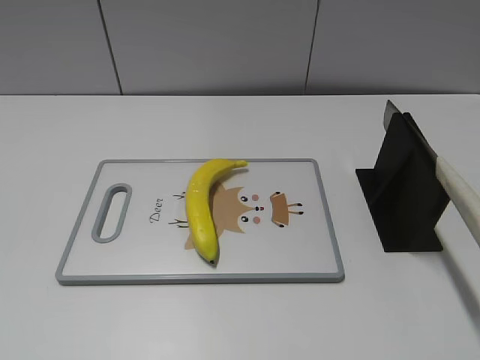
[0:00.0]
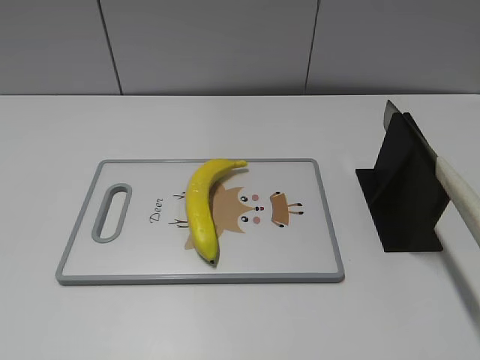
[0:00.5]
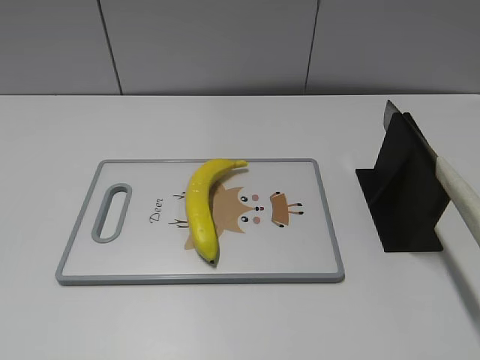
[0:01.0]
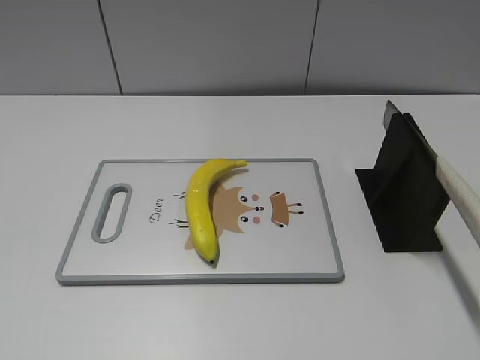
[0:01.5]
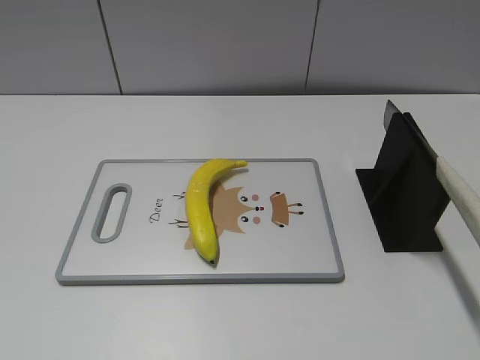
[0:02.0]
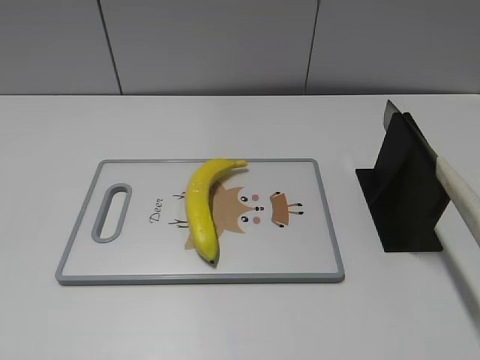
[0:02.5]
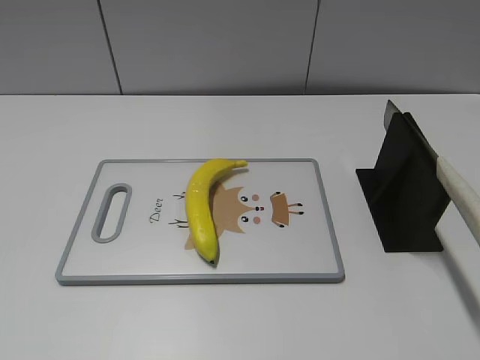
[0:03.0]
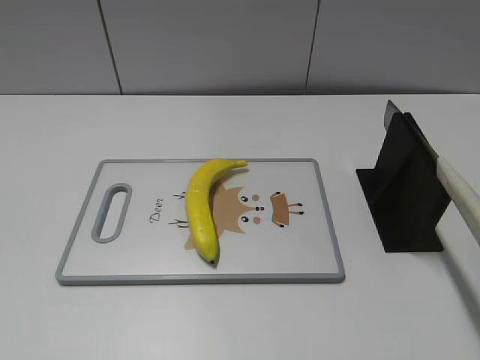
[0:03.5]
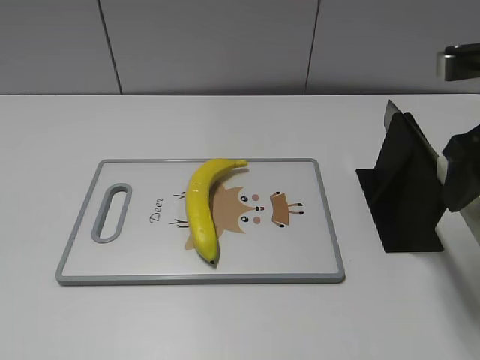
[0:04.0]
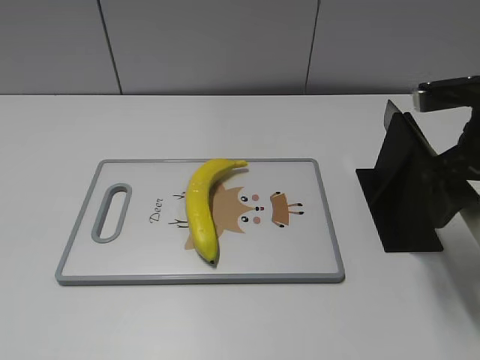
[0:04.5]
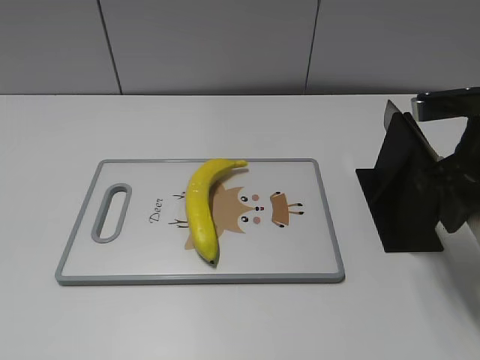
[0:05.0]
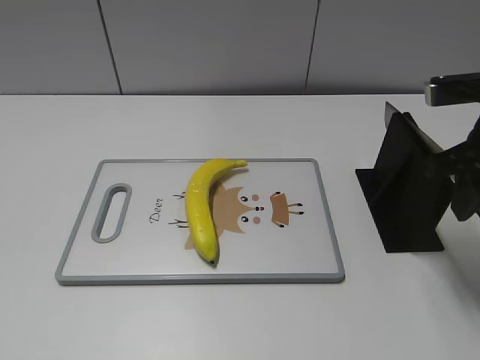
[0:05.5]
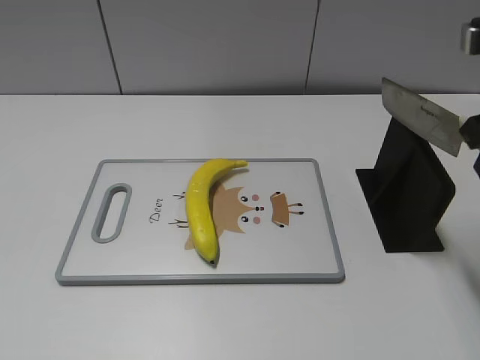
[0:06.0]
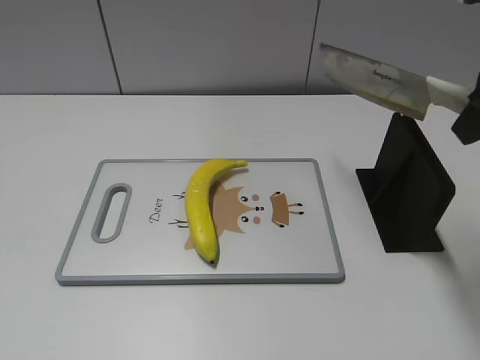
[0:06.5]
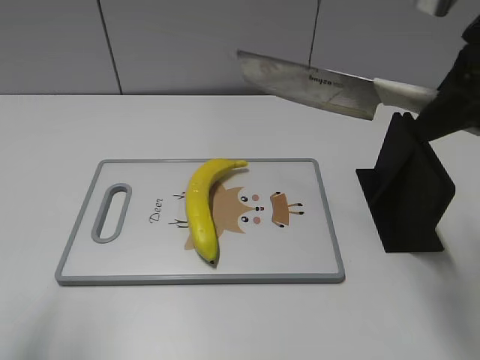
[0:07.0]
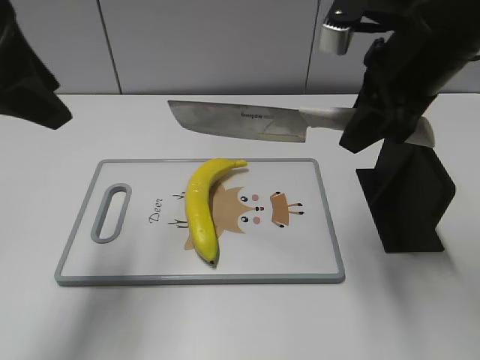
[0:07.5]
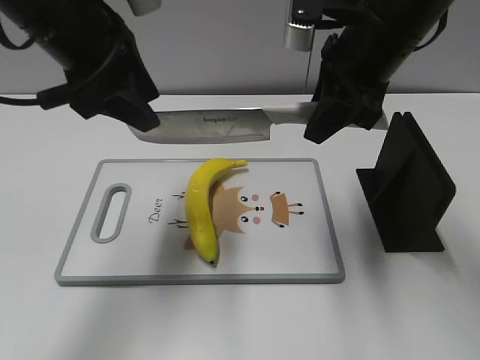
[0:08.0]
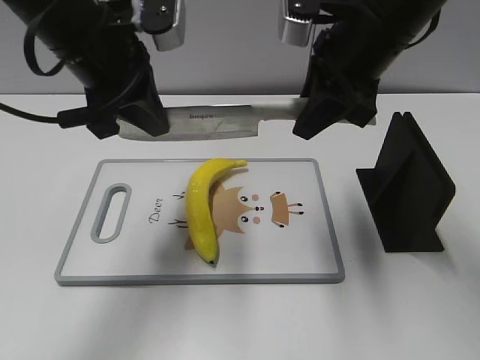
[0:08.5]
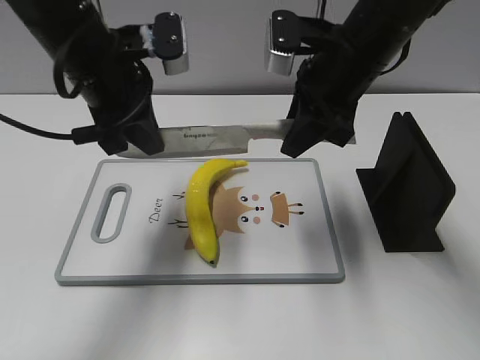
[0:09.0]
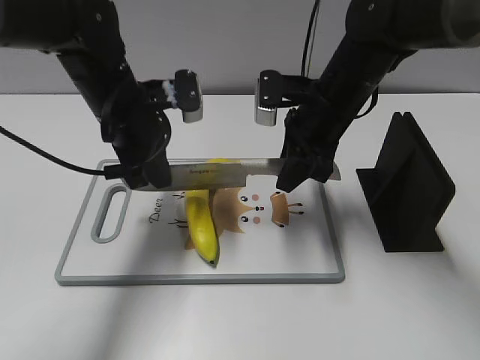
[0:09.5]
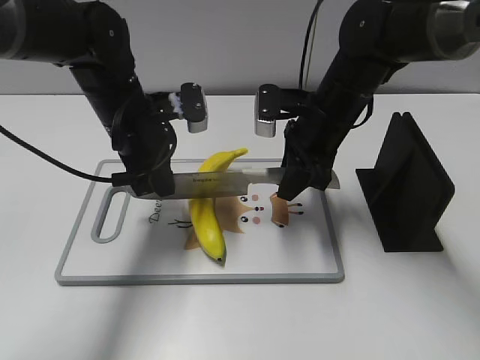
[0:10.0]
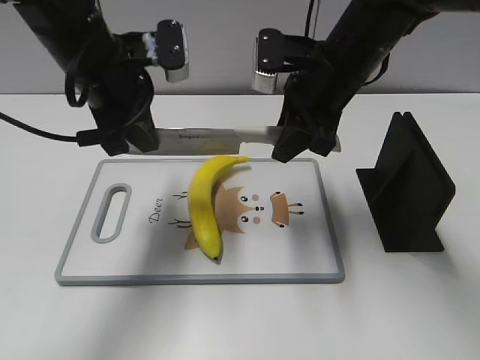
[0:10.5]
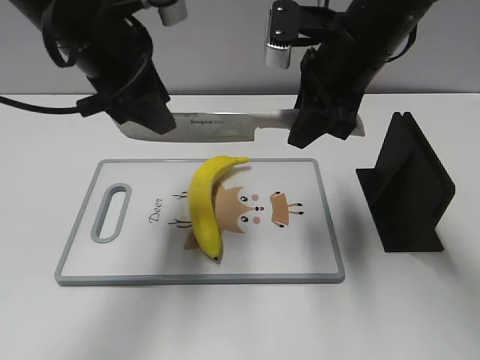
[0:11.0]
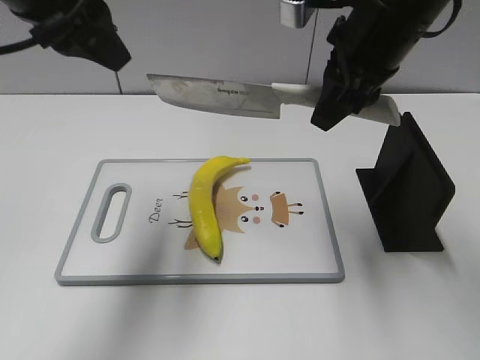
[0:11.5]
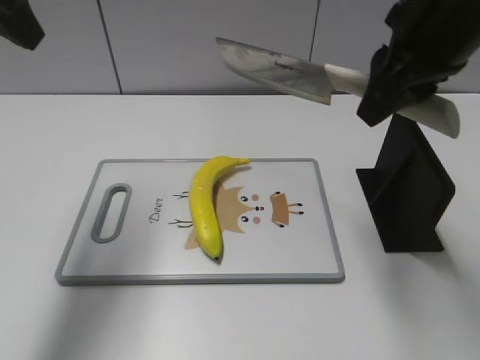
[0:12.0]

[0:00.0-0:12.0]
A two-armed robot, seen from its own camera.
Task of the whole recording: cut plastic banana.
Step, 0:00.0 to 0:06.5: Grab the knife handle with your right hand.
Step, 0:07.0 to 0:10.5: Lift the knife with your right hand.
0:02.0 to 0:04.0: The right gripper heads forward, covering about 25 cm.
0:04.0 to 0:06.0: The right gripper closes its fingers.
0:06.0 to 0:08.0: The left gripper travels forward and to the right by some 35 cm. The right gripper travels to the left and forward by approximately 15 cm.
0:08.0 to 0:10.0: The two grippers go approximately 15 cm downward. The left gripper closes.
0:10.0 to 0:12.0: The right gripper heads upward and backward, covering some 20 cm. The left gripper goes roughly 25 cm upward and to the left, and opens.

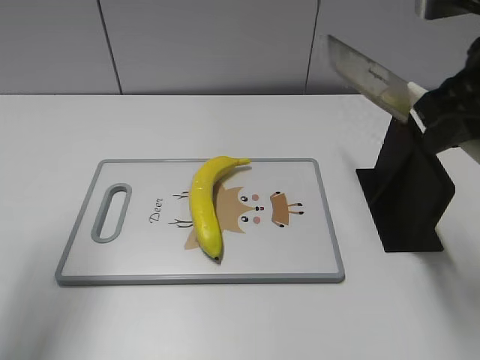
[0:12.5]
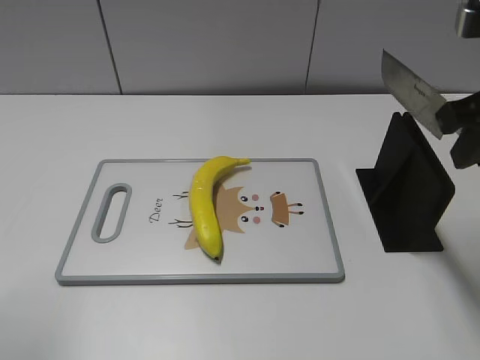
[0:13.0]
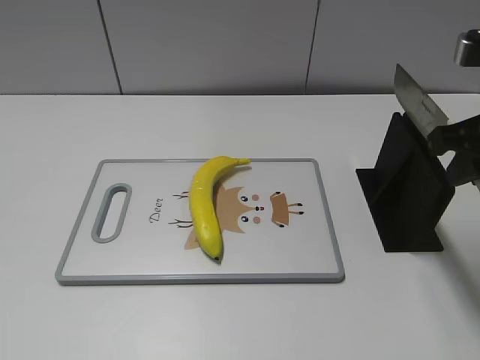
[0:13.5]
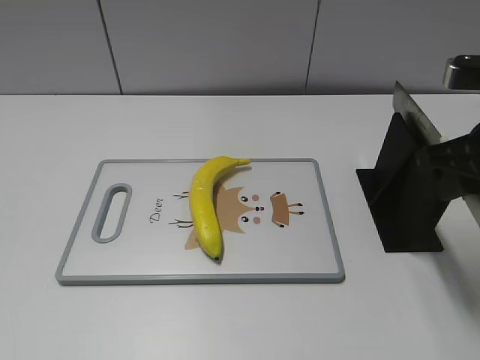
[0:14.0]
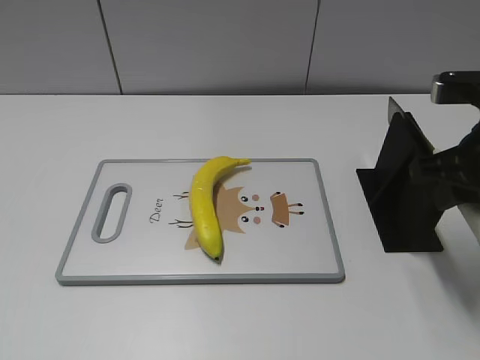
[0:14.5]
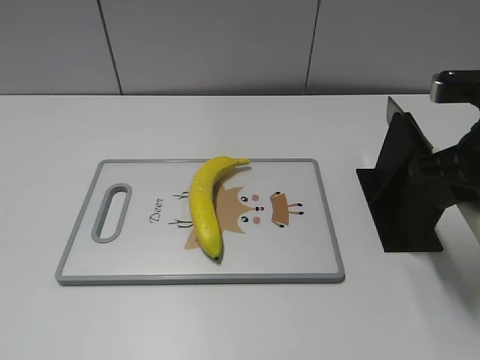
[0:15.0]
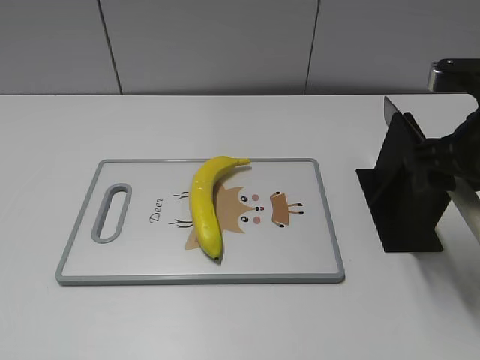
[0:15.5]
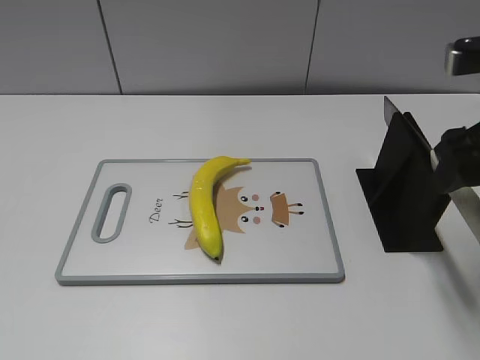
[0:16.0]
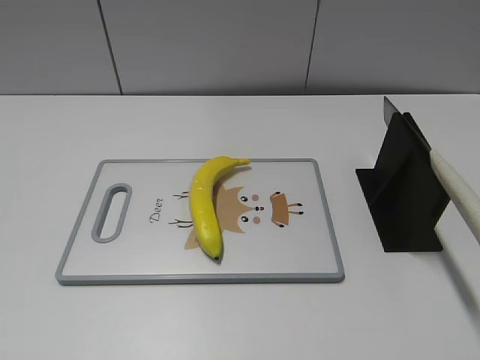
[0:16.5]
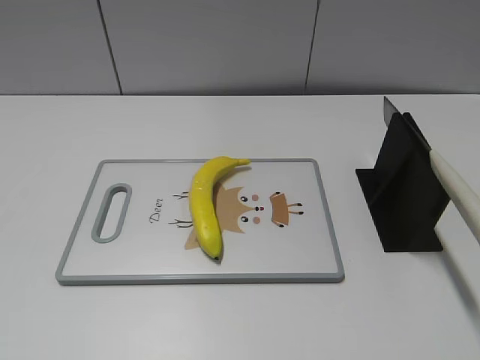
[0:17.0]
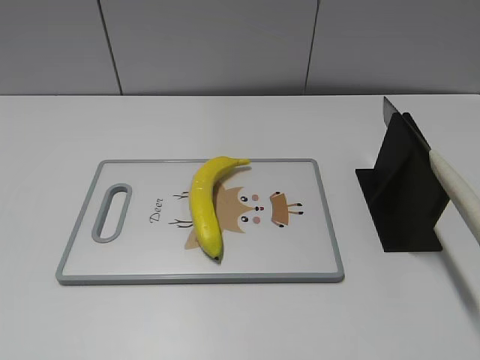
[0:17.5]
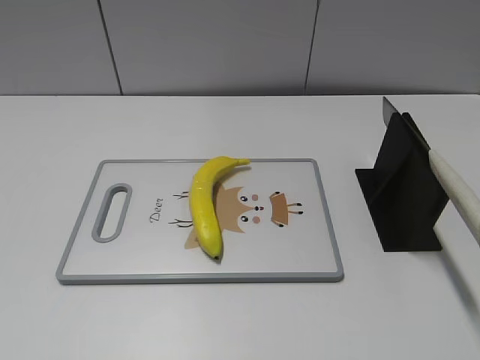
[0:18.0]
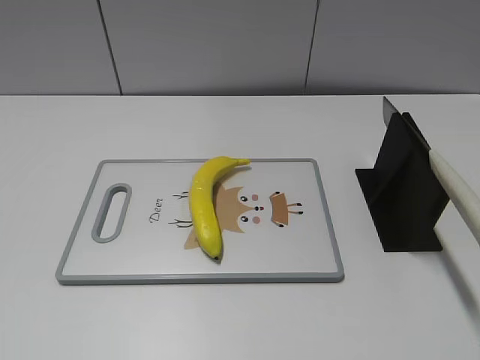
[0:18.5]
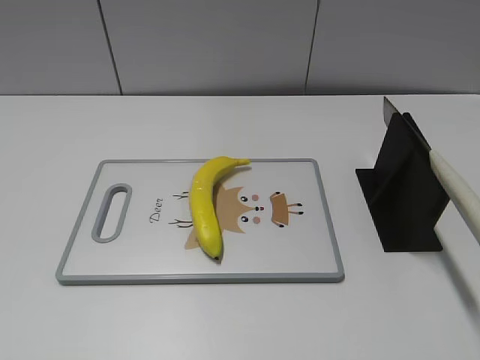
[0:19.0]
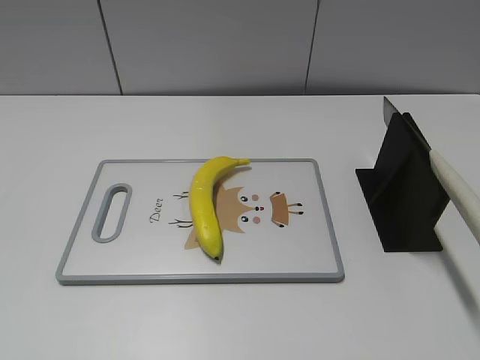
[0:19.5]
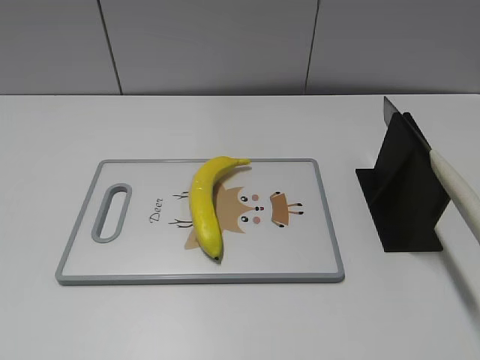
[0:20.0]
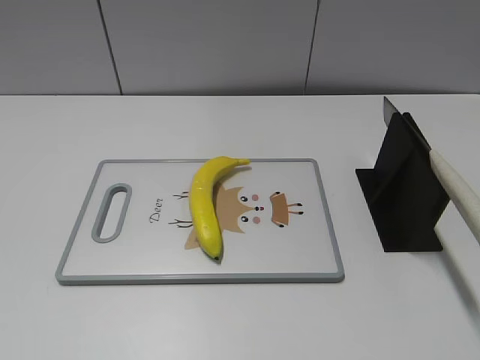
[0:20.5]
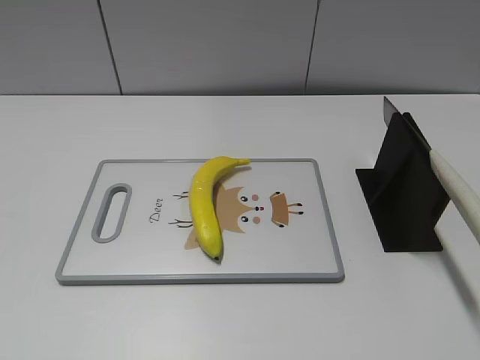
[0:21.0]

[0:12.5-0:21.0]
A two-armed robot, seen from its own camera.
Task of the whole recording: cut plastic banana.
Step, 0:12.5 to 0:13.0: Lift the knife with your right hand.
Step, 0:13.5 to 0:19.0: Place the knife on the storage rack with your right hand.
0:12.5 to 0:14.5: The right gripper travels downward by about 10 cm, while the left gripper moves backward, approximately 25 cm.
0:14.5 to 0:16.5: The right gripper moves backward and upward, approximately 15 cm, and opens its fingers.
0:19.0 to 0:21.0: Both grippers stay put.

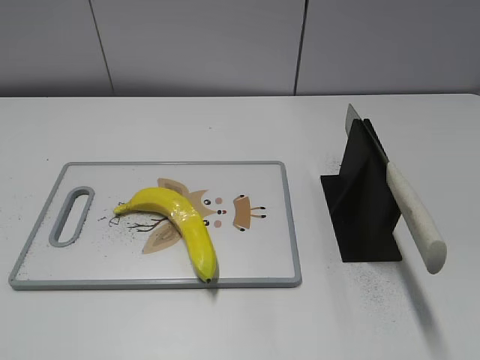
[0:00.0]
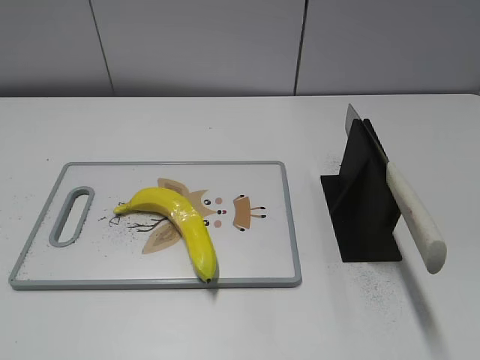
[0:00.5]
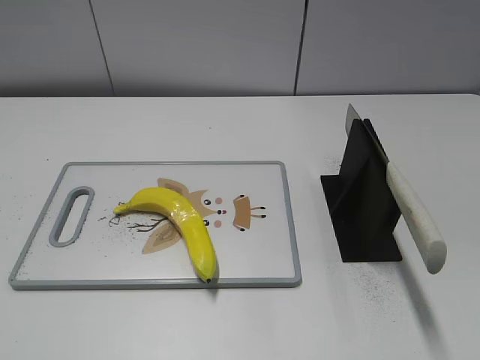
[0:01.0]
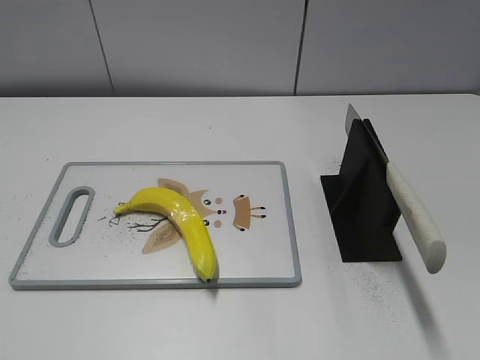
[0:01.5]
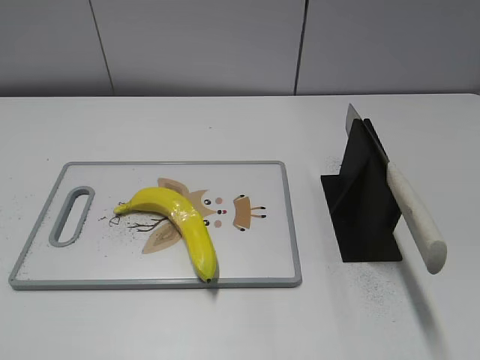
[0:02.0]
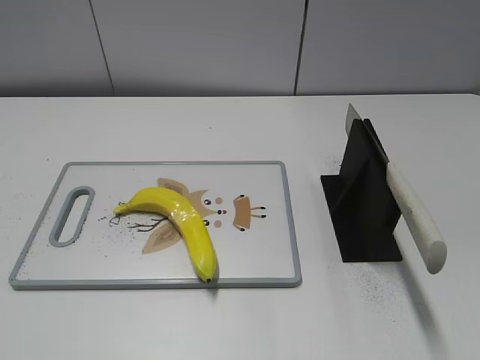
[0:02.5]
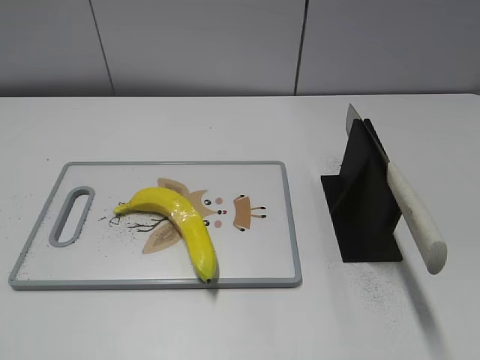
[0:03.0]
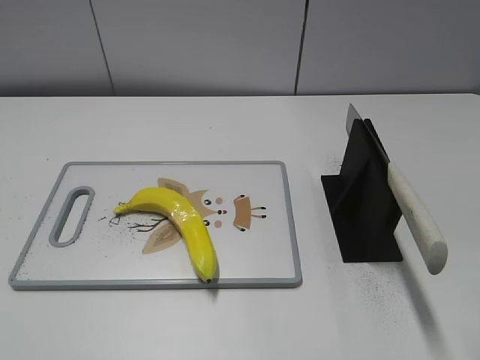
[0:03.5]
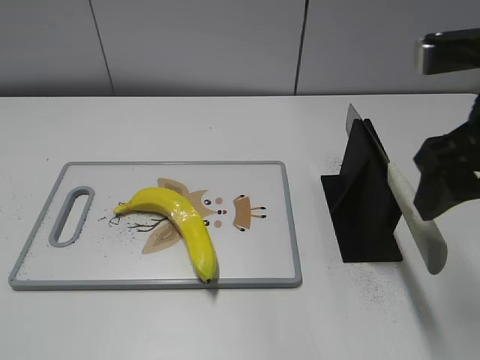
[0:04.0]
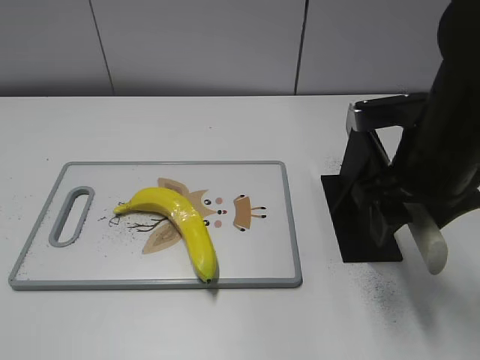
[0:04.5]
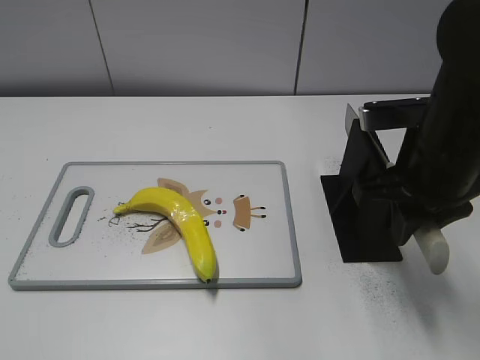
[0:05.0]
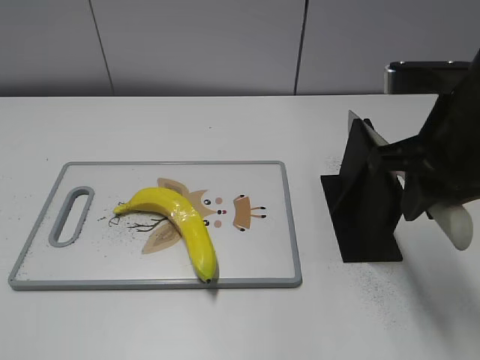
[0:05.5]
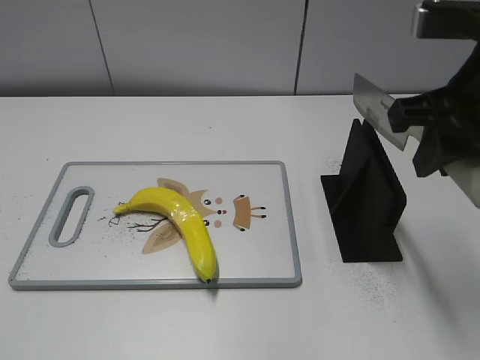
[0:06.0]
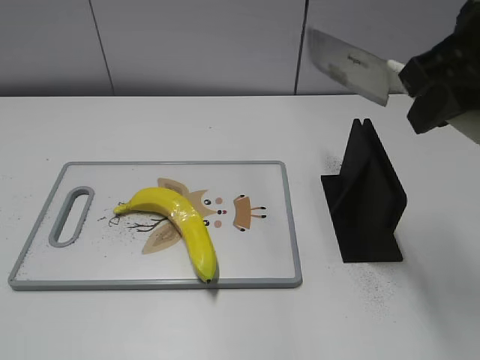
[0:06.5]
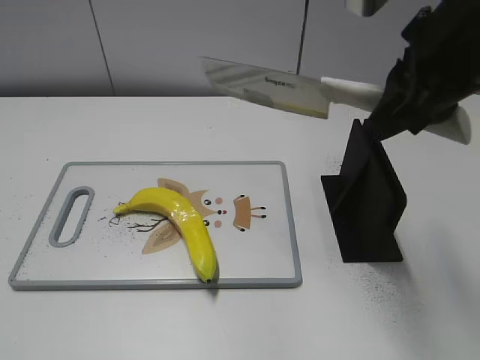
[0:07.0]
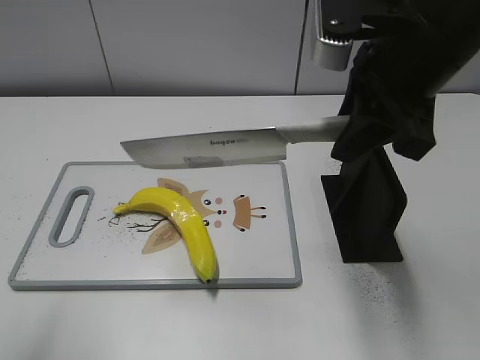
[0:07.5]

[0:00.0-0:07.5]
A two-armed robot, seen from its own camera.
Task of the whole recording: cut plastic banana.
Step, 0:00.0 to 0:06.0: Grab the knife handle with your right hand.
0:02.0 to 0:04.0: The right gripper travels forward and to the left by approximately 25 cm.
0:04.0 to 0:05.5: The right gripper closes.
0:05.5 to 0:07.5: The right gripper shifts by some 5 cm; the left gripper goes approximately 15 cm forward and upward.
